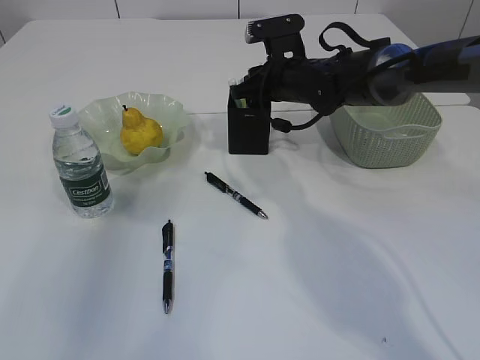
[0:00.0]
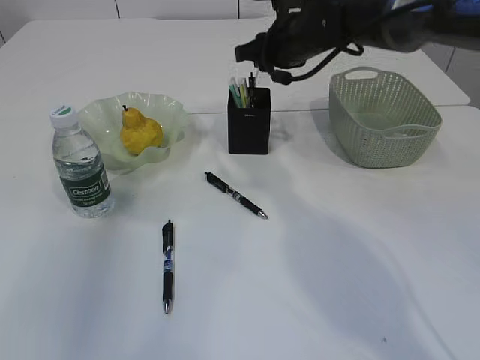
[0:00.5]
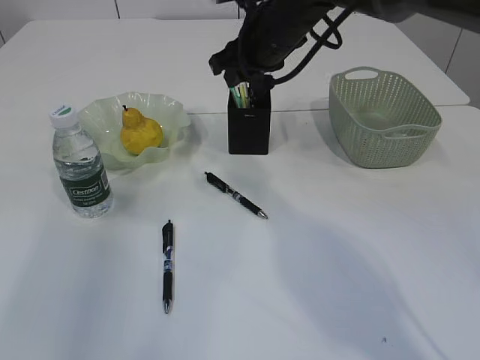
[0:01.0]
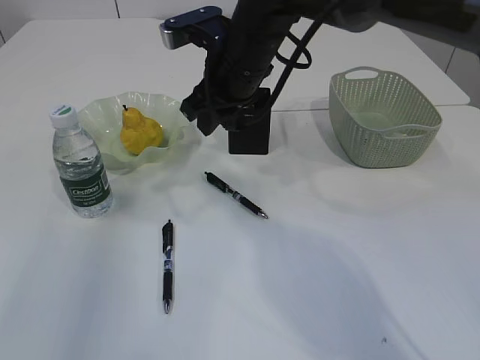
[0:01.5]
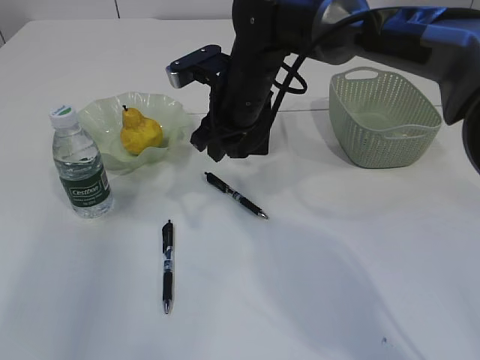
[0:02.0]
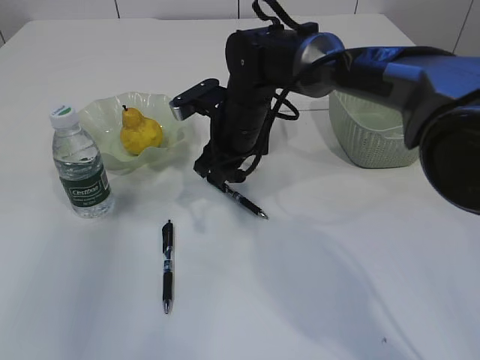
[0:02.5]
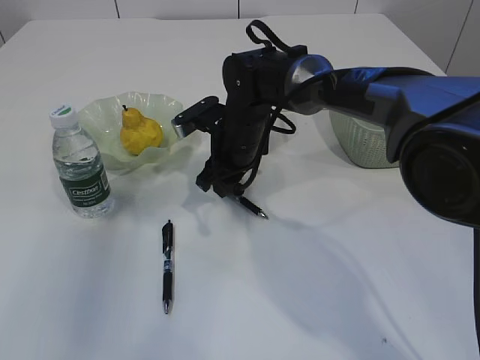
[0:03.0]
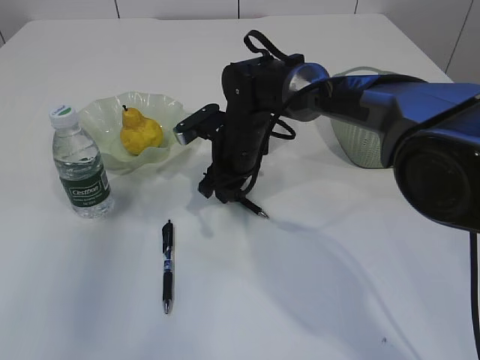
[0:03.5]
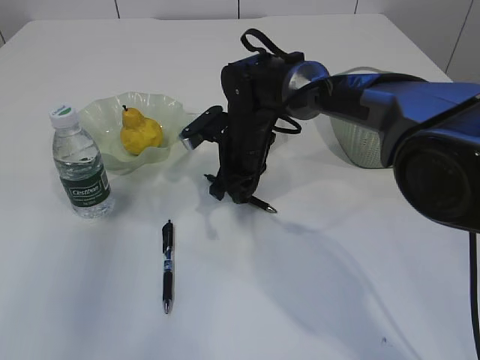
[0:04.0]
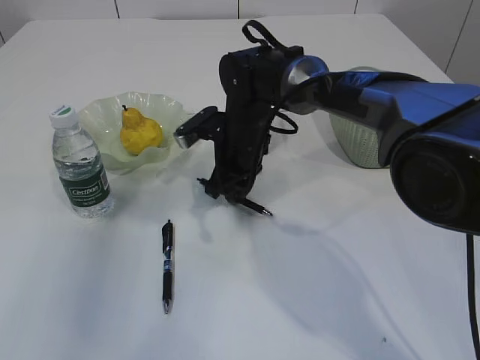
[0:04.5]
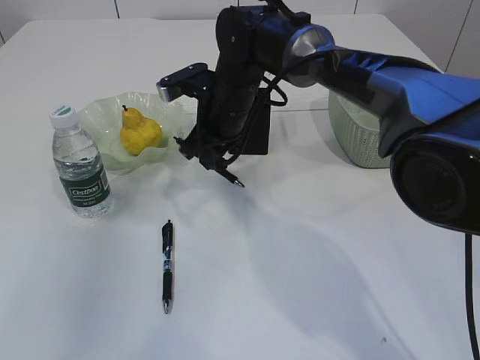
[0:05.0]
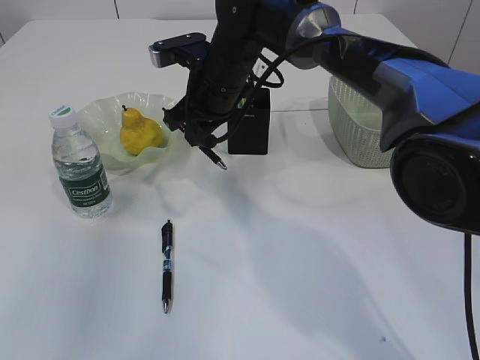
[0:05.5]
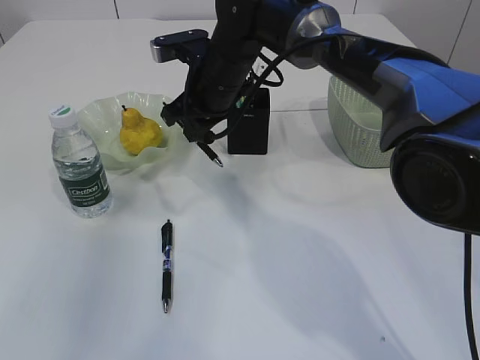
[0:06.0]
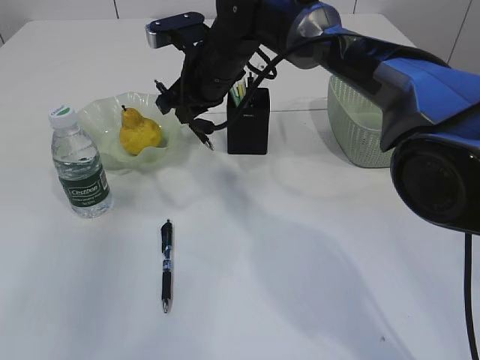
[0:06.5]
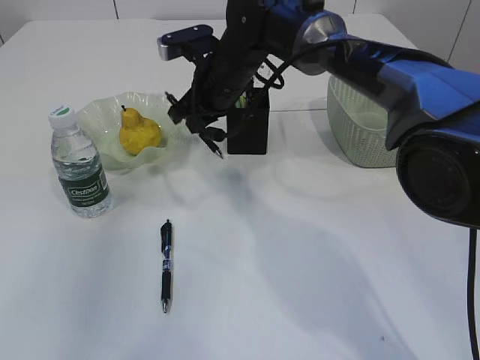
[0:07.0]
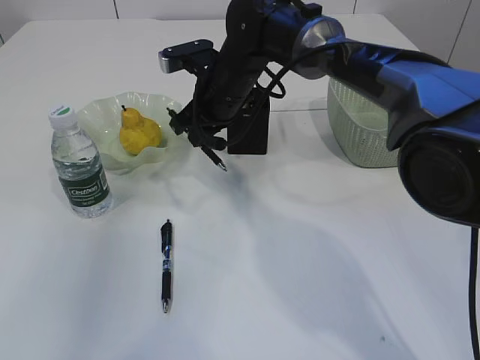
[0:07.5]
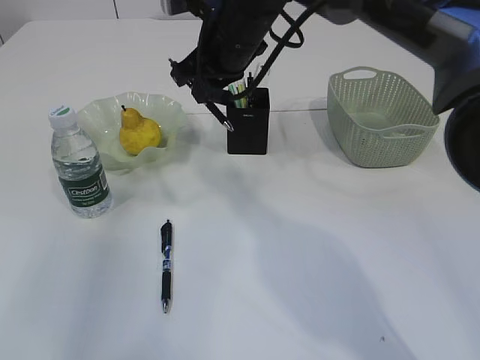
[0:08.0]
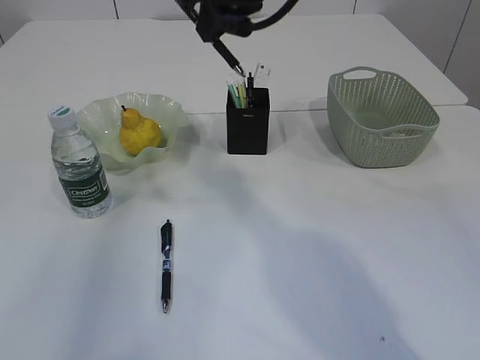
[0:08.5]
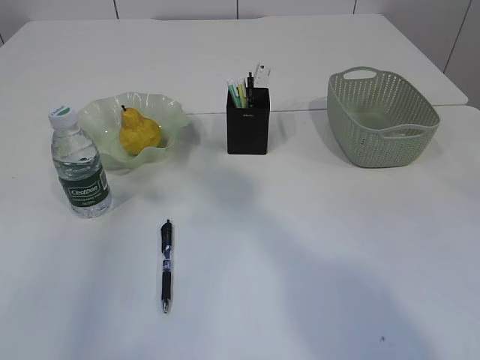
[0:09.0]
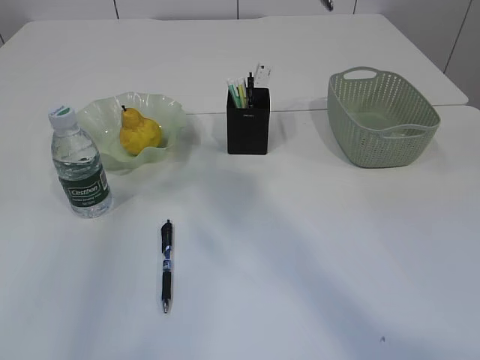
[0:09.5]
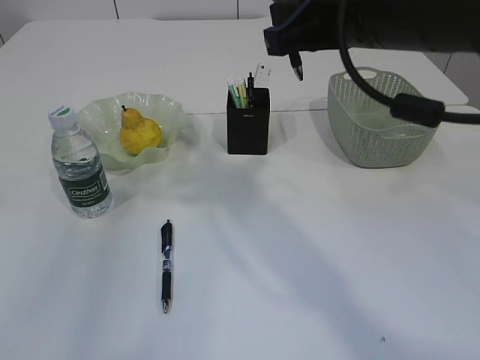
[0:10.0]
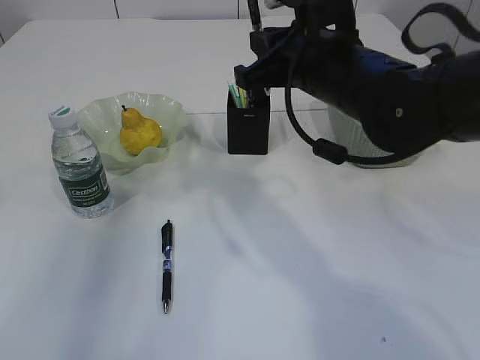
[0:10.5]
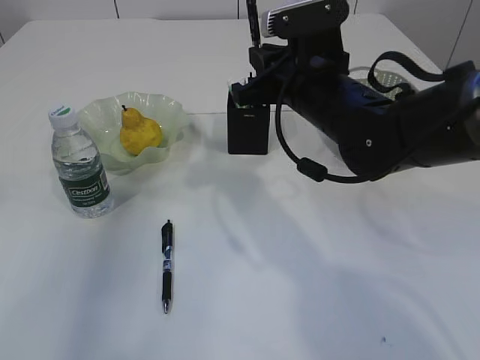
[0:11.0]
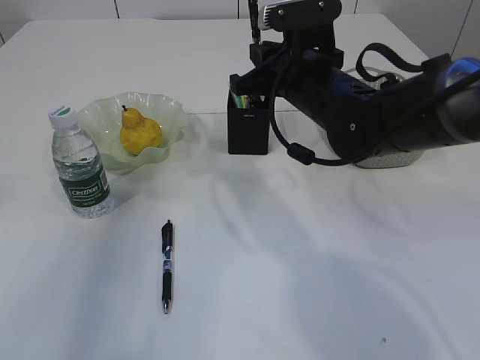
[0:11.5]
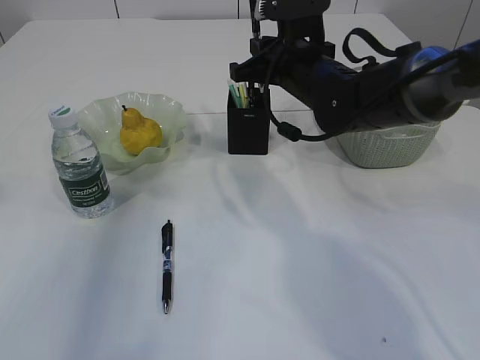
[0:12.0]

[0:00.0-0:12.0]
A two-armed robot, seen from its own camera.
Step, 0:01.0 to 0:05.5: Pick up the pen with right arm.
0:00.0 to 0:02.0: The right gripper shifts some 10 cm to the left and backward.
0:02.0 to 0:04.0: The right gripper is displaced downward by about 10 cm, and closes up.
0:04.0 to 0:06.0: The right gripper shifts some 10 cm upward.
0:06.0 to 0:08.0: The right gripper goes roughly 5 cm upward.
0:08.0 to 0:10.0: The right gripper goes some 20 cm backward and to the right, and goes upward and returns, approximately 20 cm each way.
0:10.0 to 0:12.0: The right gripper moves forward and downward, approximately 20 cm.

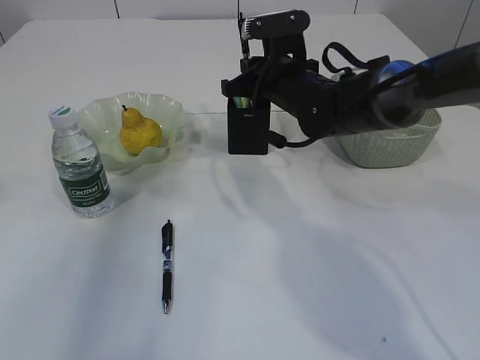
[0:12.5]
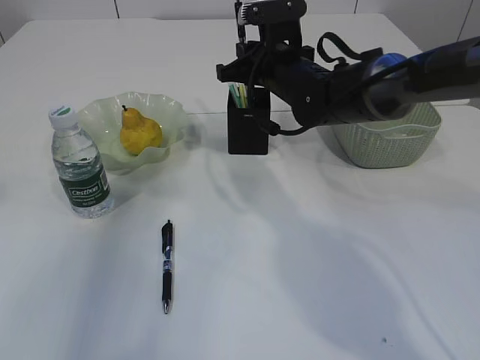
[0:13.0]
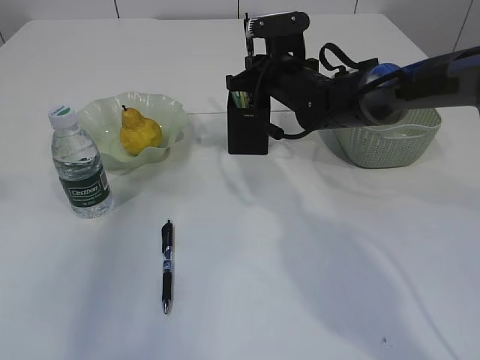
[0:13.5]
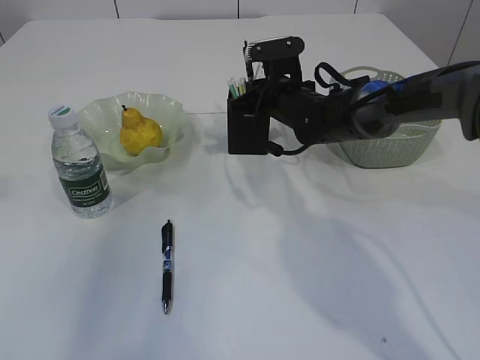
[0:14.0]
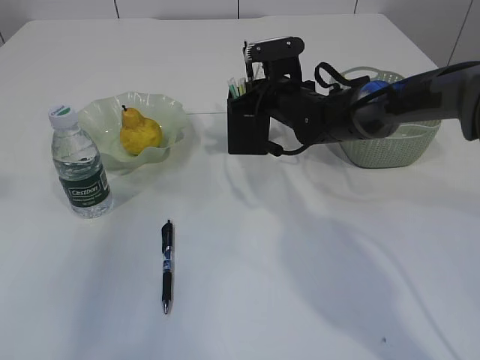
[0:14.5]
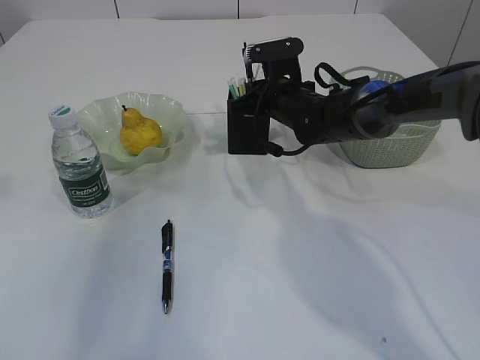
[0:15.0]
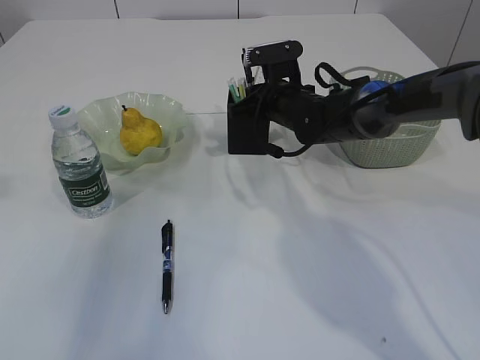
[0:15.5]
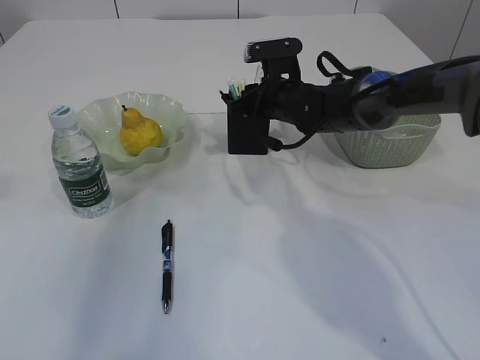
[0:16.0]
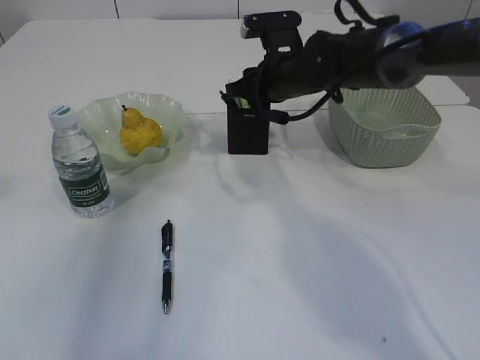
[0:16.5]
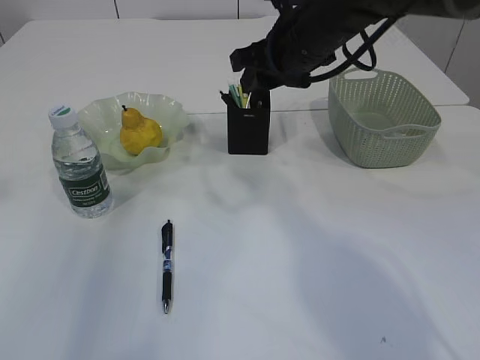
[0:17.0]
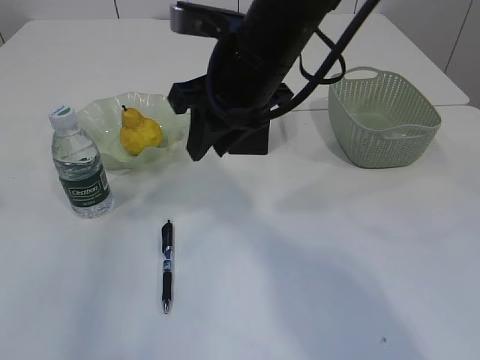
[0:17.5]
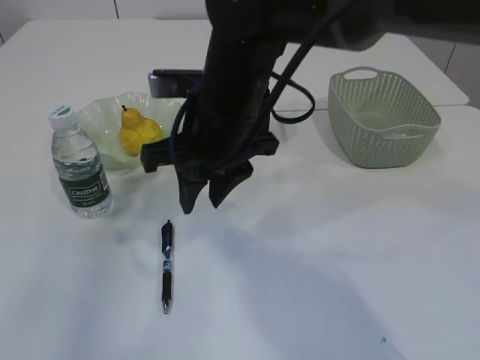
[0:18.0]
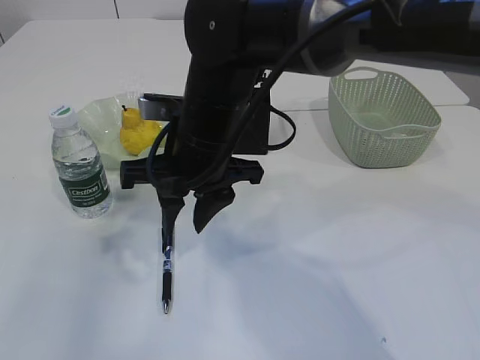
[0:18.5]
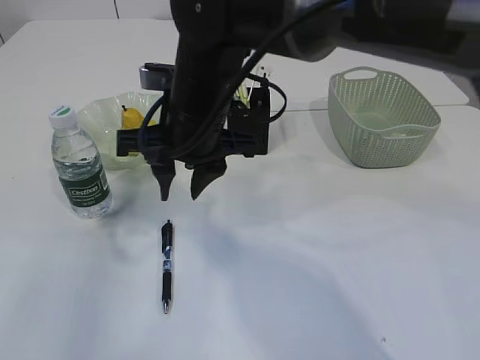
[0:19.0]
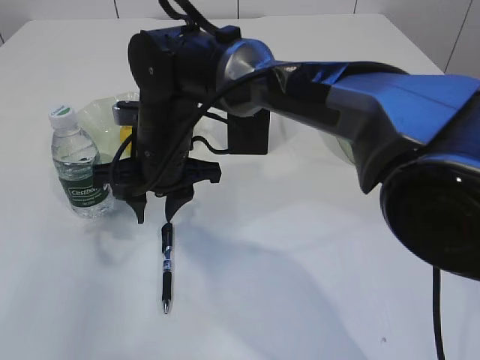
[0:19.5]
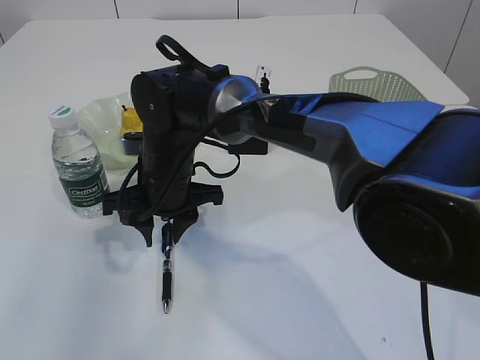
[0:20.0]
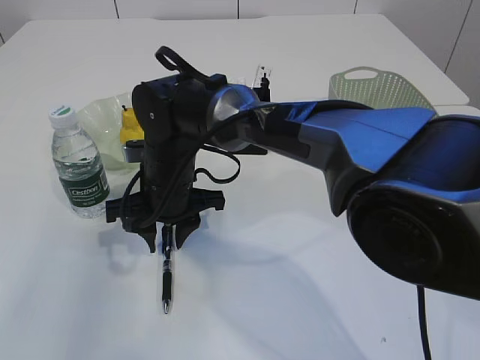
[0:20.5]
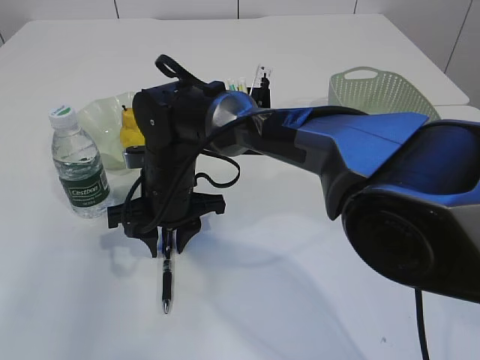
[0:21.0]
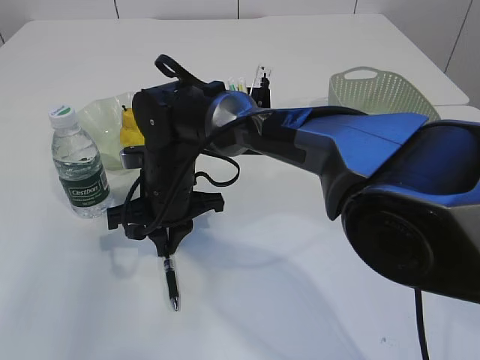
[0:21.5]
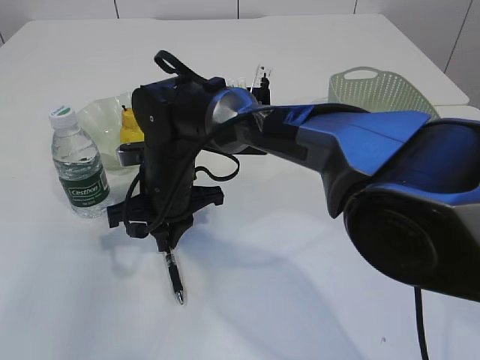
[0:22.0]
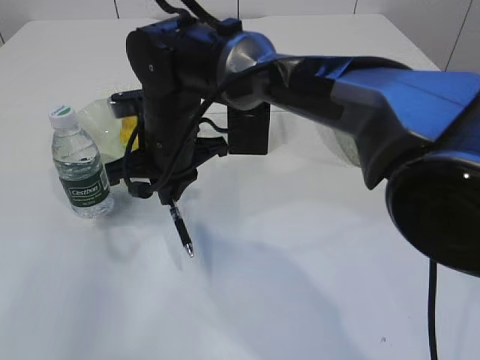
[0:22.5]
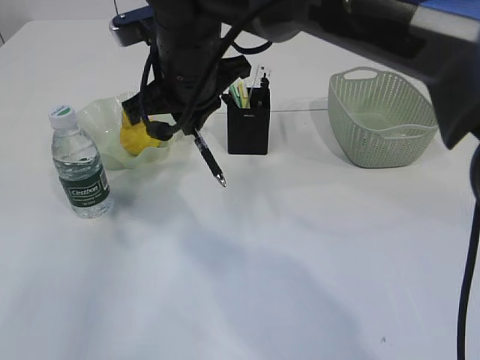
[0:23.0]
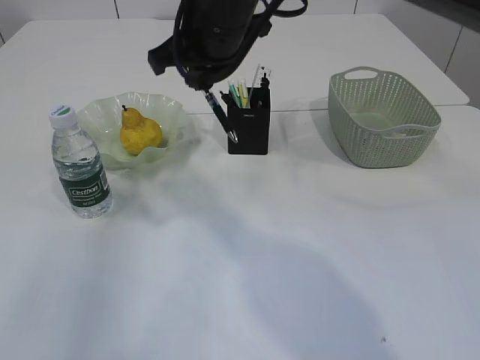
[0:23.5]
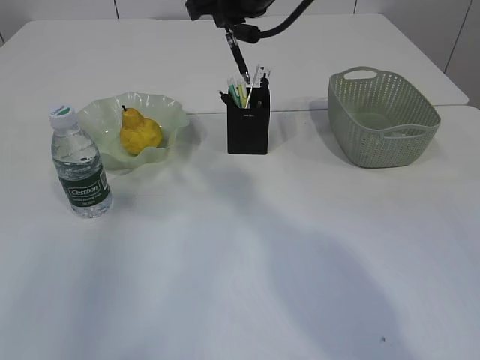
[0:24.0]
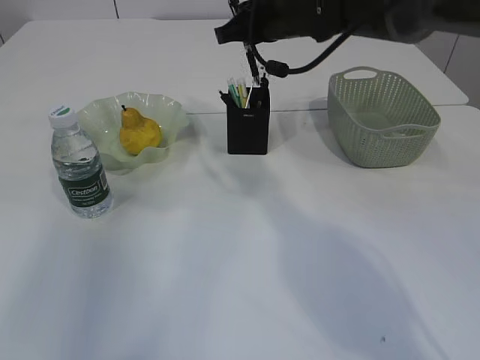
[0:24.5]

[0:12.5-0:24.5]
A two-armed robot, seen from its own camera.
Step, 0:12.5 to 0:15.5: Place the pen into the pen holder.
Step, 0:16.0 to 0:22.5: Pick up the pen with right arm.
0:12.5 to 0:14.5: The right gripper shifts by about 5 cm.
0:14.5 to 0:16.5: The right gripper moves some 5 cm, and opens its fingers.
0:16.5 to 0:18.5: The right gripper is displaced backward and to the left by about 20 cm.
0:18.5 to 0:20.5: The right gripper is displaced downward by about 10 cm.
0:20.5 to 0:22.5: The right gripper is displaced upward by some 5 cm, and closes up.
0:22.5 to 0:24.5: The right gripper moves to the right, forward and upward, roughly 20 cm.

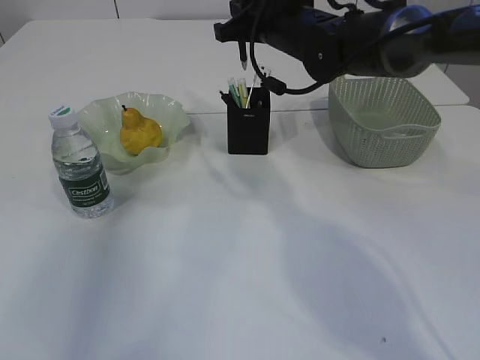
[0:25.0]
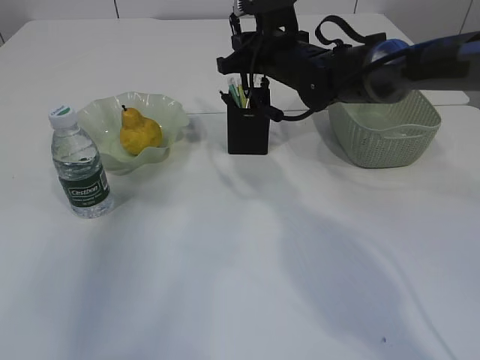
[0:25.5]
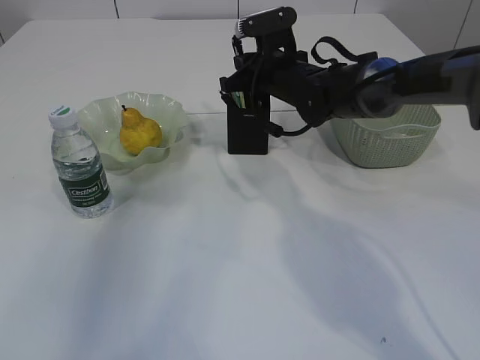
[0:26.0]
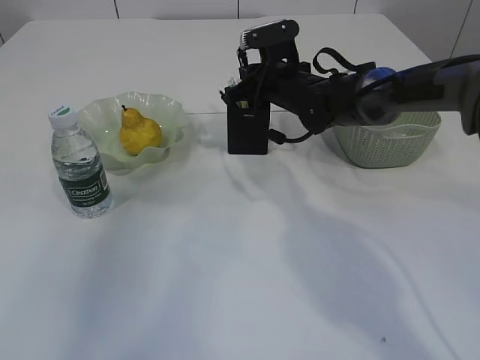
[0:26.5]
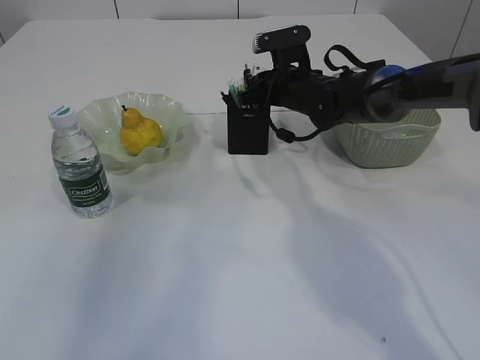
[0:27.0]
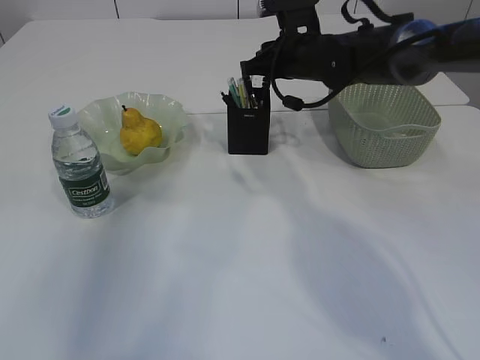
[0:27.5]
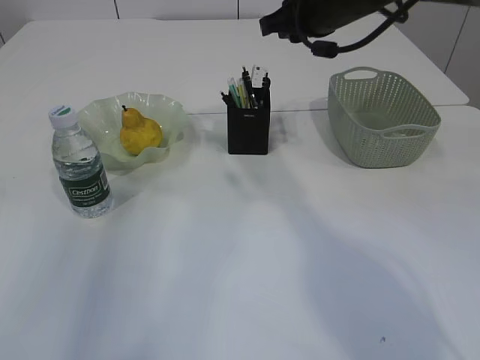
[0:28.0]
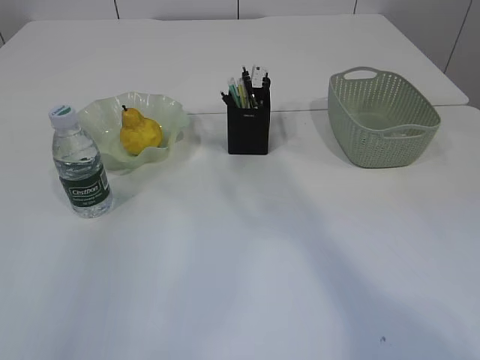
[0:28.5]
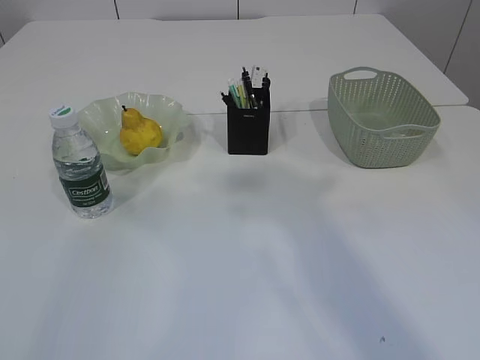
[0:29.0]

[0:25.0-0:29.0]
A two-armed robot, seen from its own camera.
Step, 0:25.0 to 0:27.5: Place the pen into the pen holder.
0:25.0 to 0:27.0: The right gripper travels downward by roughly 10 cm.
0:27.0 to 0:29.0: The right gripper is displaced backward and upward by roughly 40 cm. The left gripper is displaced backward and upward by some 15 cm.
